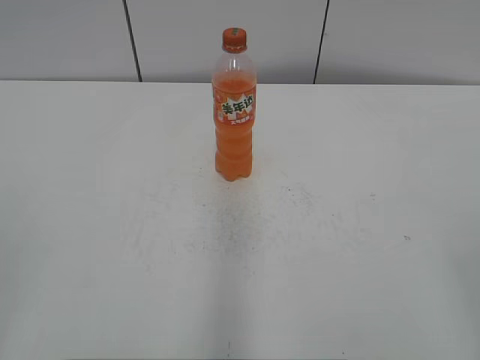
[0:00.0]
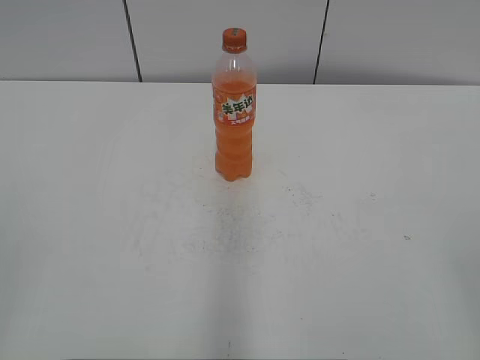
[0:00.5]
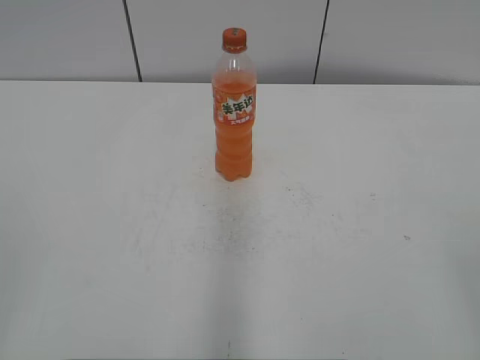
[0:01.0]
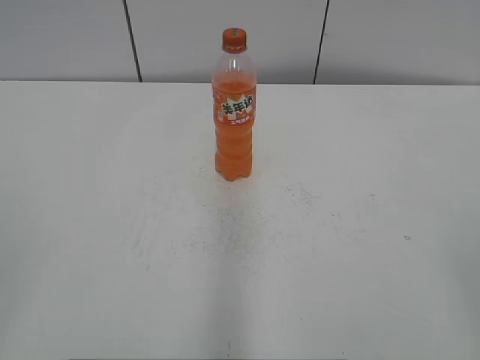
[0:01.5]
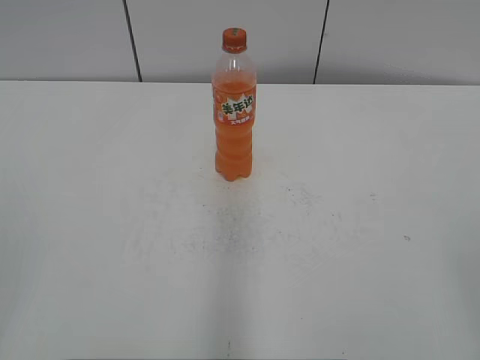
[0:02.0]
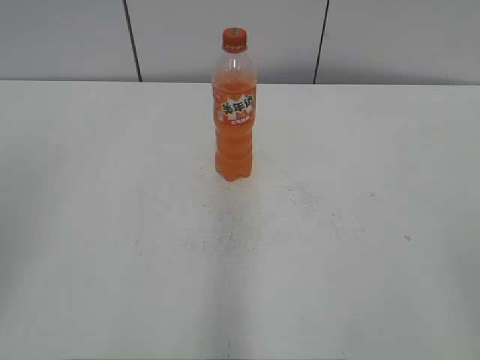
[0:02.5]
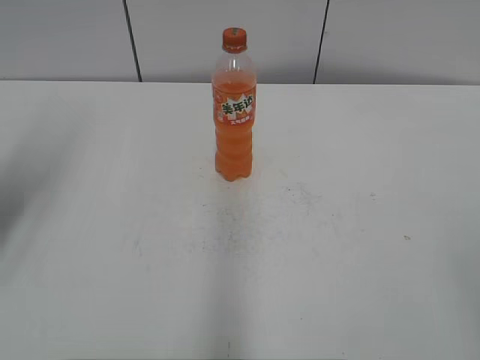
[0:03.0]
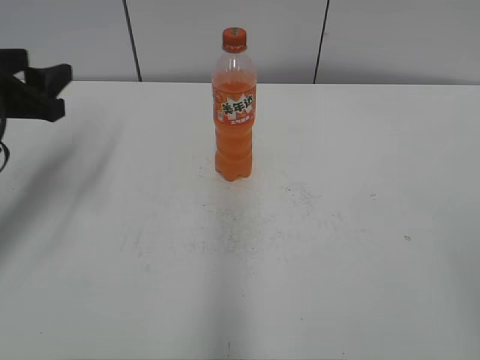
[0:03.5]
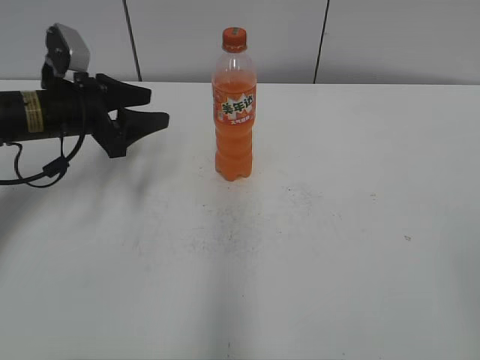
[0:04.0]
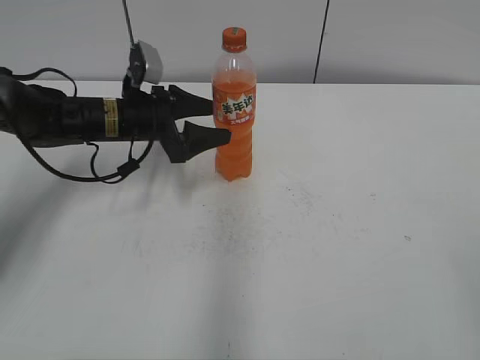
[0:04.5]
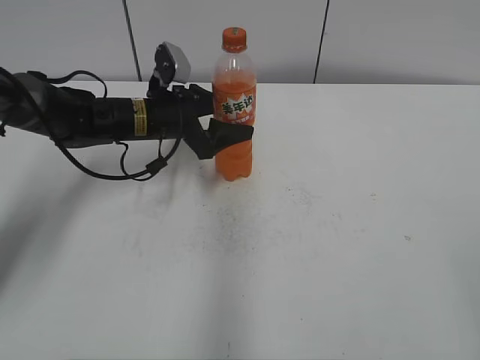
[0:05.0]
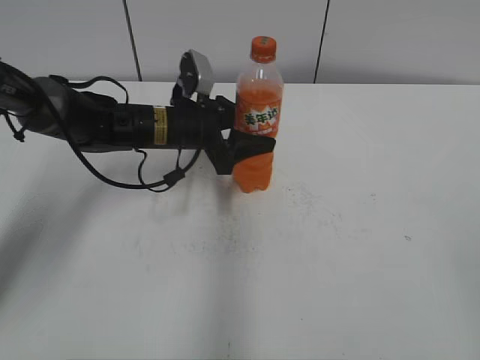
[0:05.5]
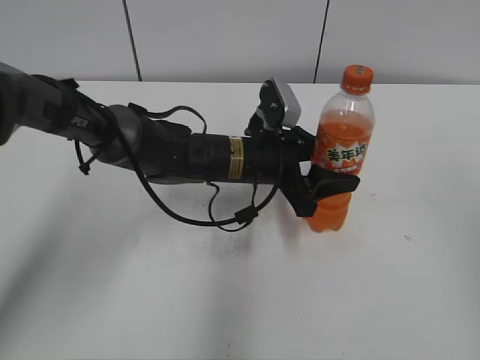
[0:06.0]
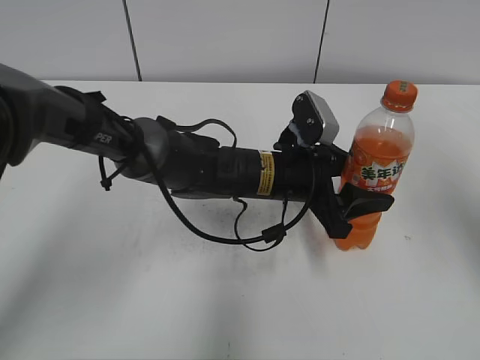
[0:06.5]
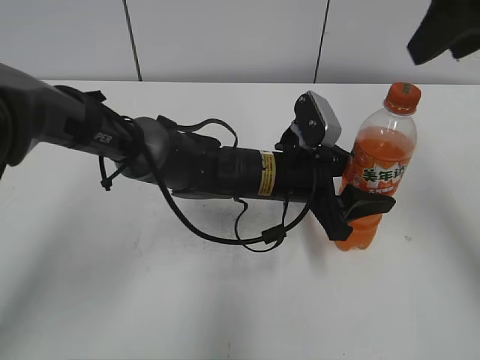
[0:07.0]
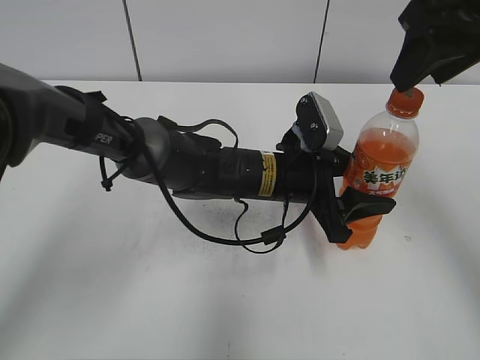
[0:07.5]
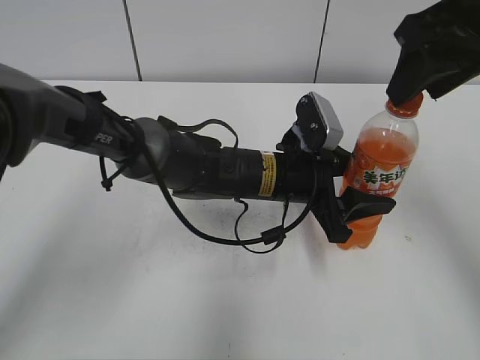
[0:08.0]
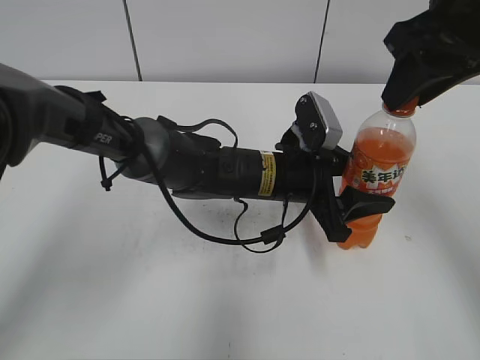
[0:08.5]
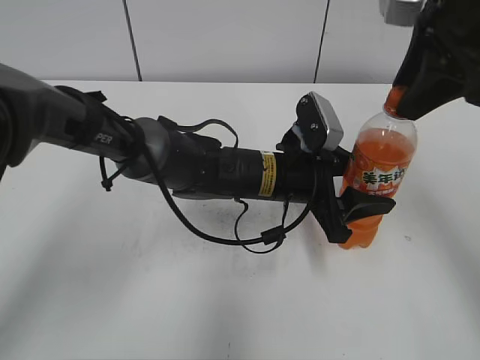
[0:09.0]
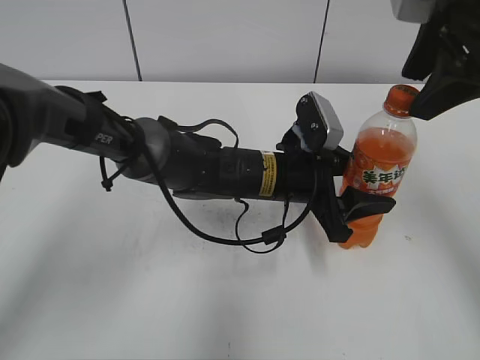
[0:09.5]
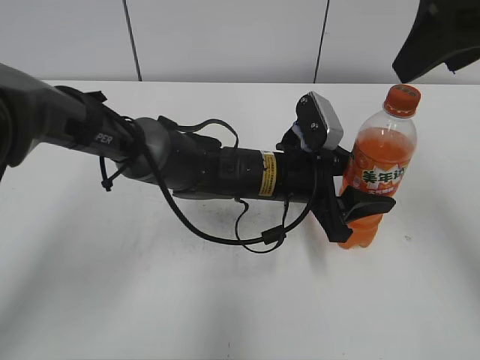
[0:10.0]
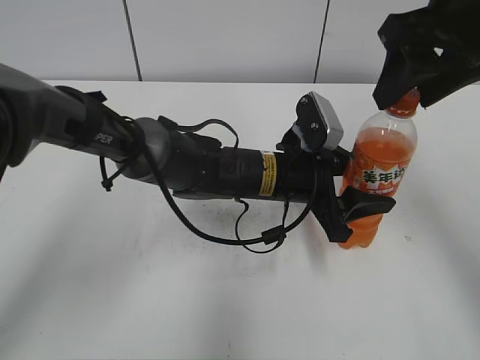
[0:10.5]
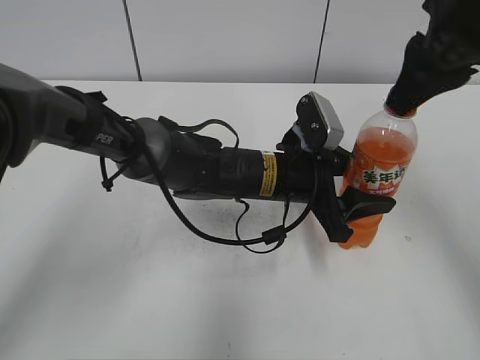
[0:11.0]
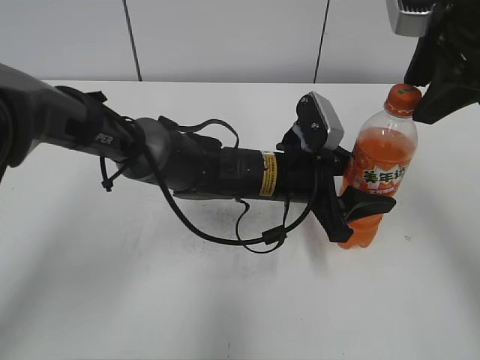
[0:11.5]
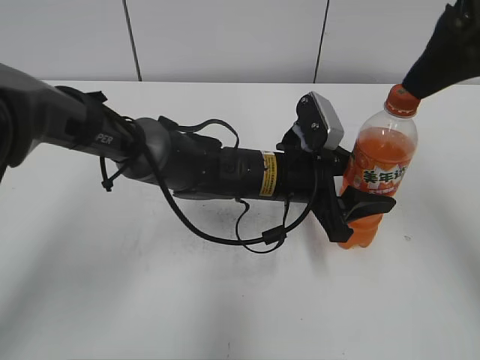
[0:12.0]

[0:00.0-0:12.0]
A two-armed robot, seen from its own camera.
Step, 0:00.0 to 0:05.0: Grab the Mirinda with the left hand.
Step, 0:05.5 to 0:06.0: Move the Mirinda from left to right.
0:02.0 to 0:04.0: The left gripper moves forward, roughly 40 cm.
0:04.0 to 0:06.0: The left gripper heads to the right, covering about 25 cm, and opens and closes again; the right gripper travels upward and forward by about 10 cm.
0:06.0 to 0:08.0: The right gripper shifts roughly 25 cm forward and to the left.
0:08.0 to 0:10.0: The right gripper closes, then opens again.
0:10.0 to 0:12.0: The right gripper closes, then opens again.

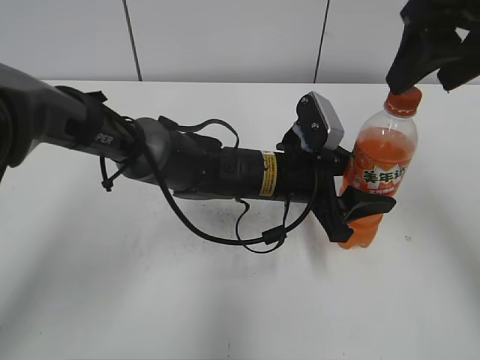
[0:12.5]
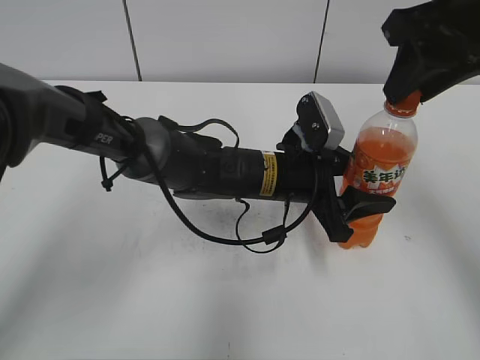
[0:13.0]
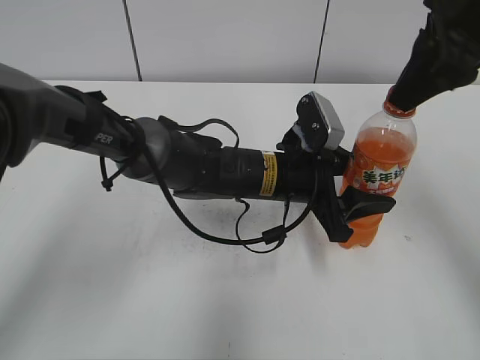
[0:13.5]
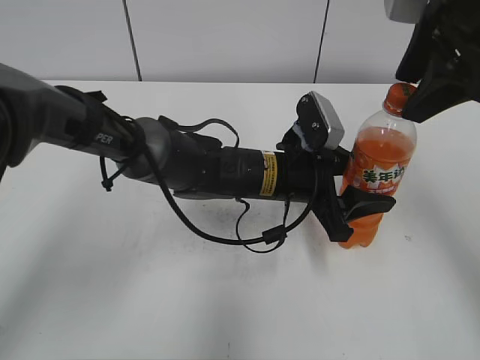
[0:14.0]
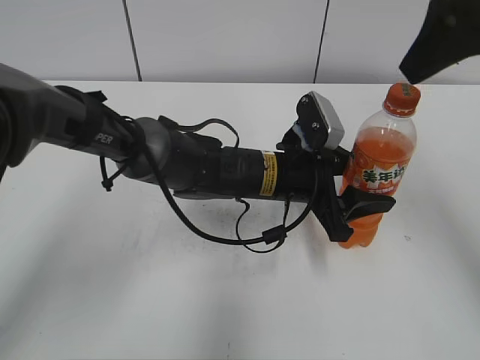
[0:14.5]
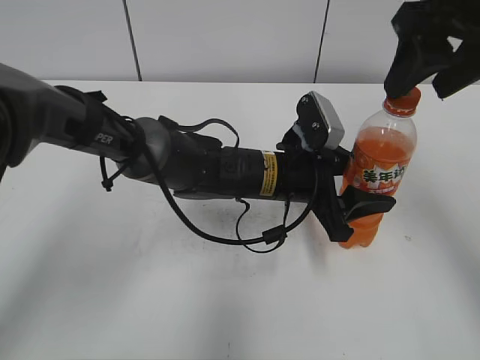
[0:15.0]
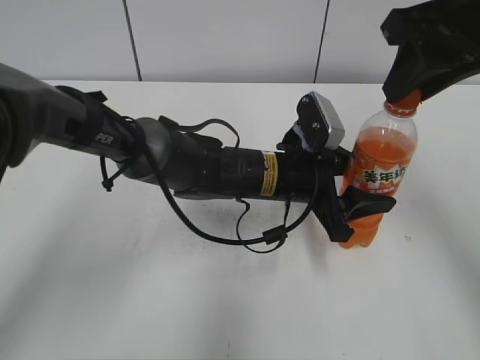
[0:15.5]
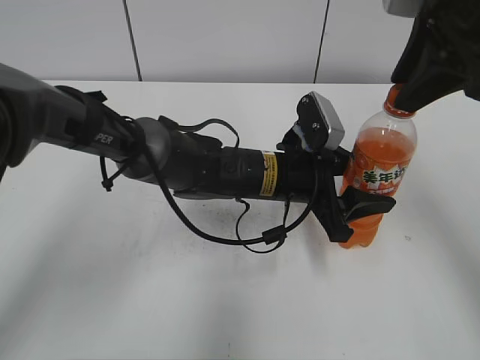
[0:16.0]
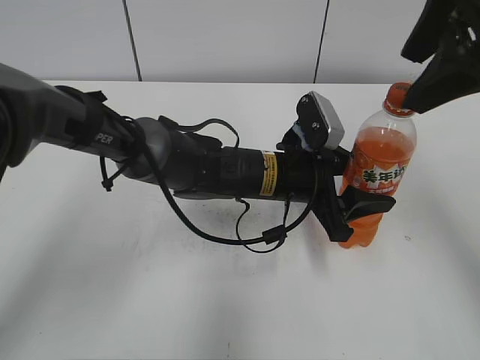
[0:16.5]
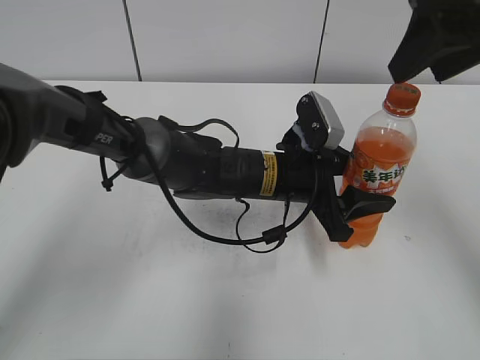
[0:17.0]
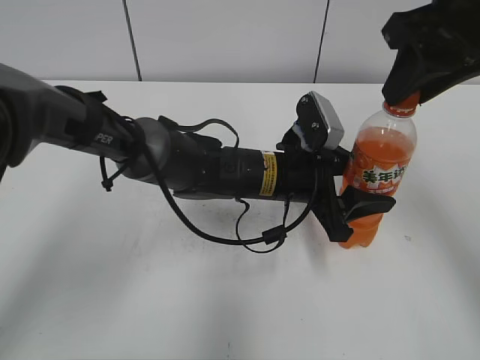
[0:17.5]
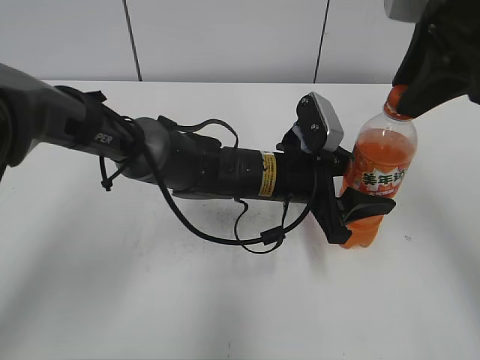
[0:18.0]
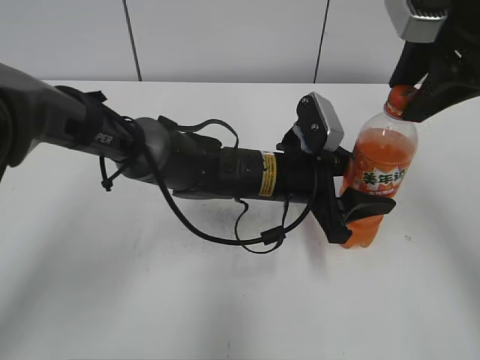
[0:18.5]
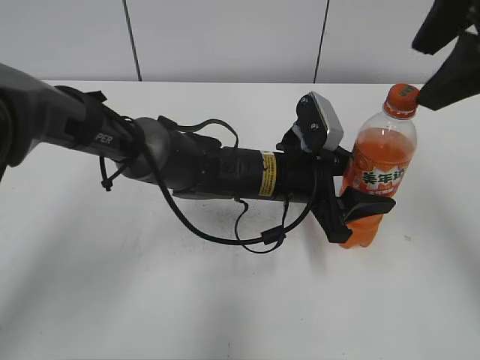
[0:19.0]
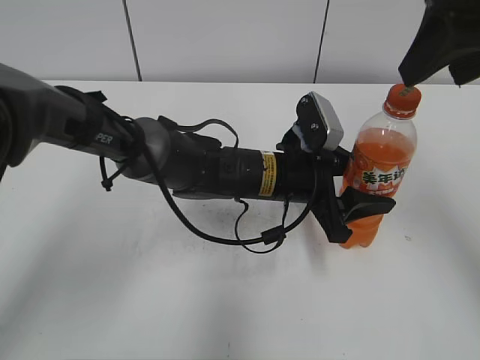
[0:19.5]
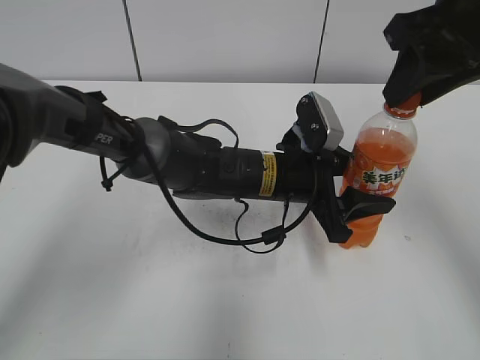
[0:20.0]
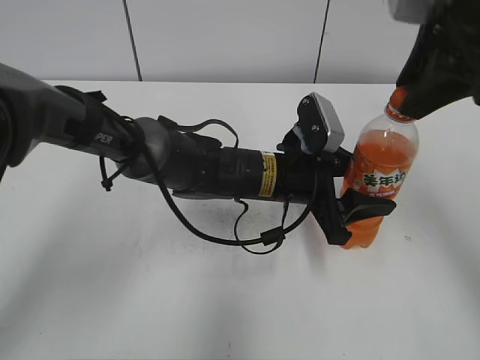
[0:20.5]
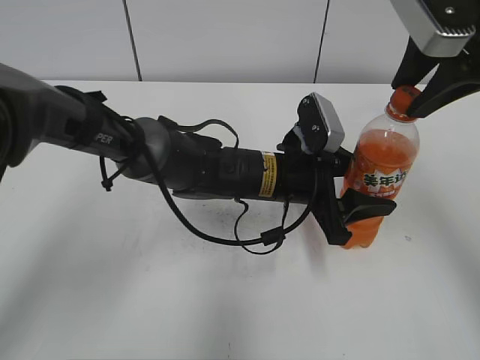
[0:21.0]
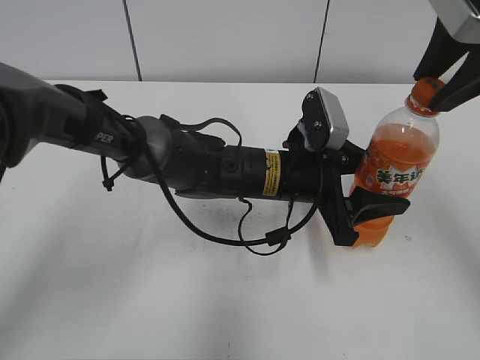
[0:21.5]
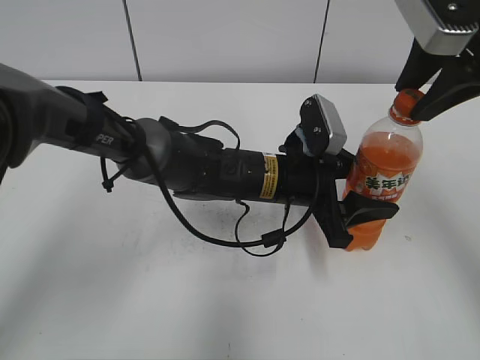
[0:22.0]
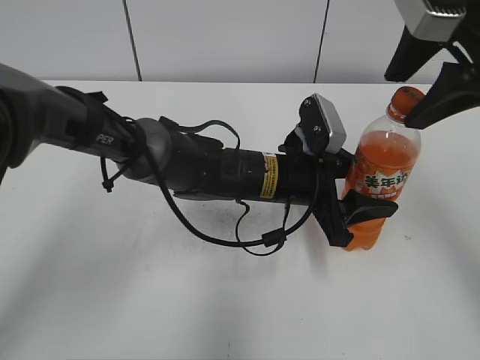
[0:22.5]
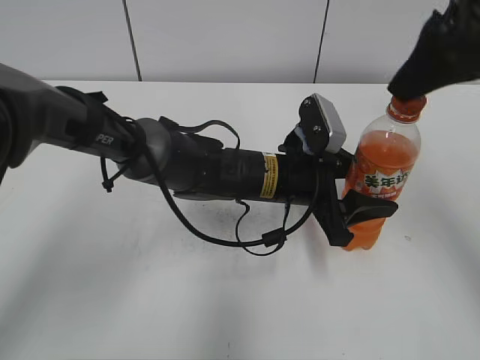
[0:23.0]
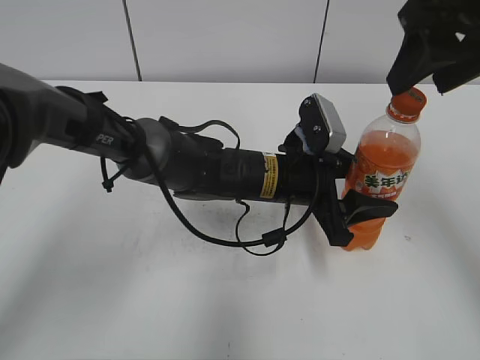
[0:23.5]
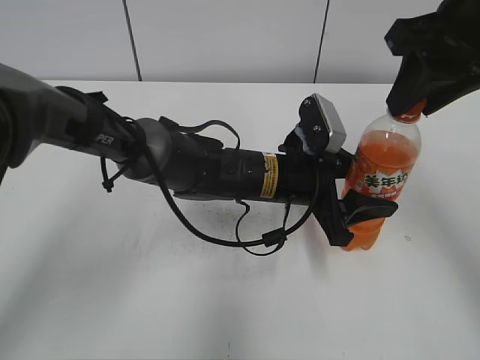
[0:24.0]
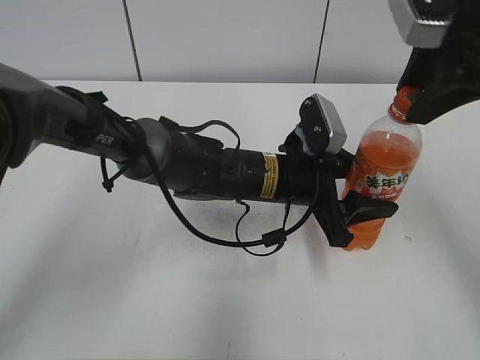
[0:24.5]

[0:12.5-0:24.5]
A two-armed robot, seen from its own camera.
0:12.5 to 0:14.5: The right gripper closes, then reopens.
0:14.5 to 0:16.5: The right gripper closes and opens again.
0:16.5 to 0:18.5: The right gripper closes up.
0:18.5 to 0:20.5: The right gripper opens, then closes again.
0:20.5 to 0:22.5: The right gripper opens its fingers.
0:22.5 to 0:24.5: The right gripper closes its fingers.

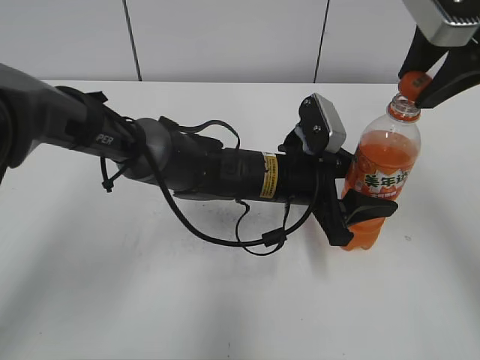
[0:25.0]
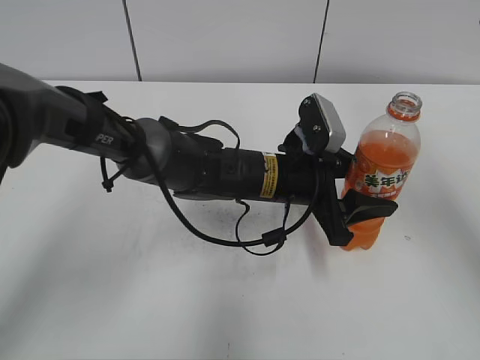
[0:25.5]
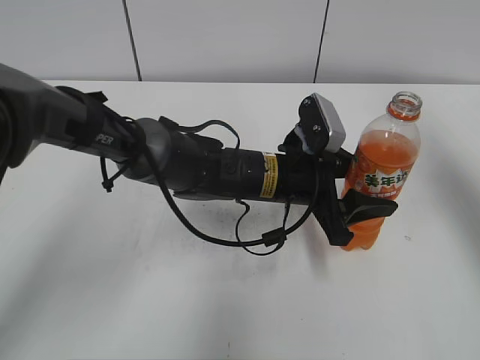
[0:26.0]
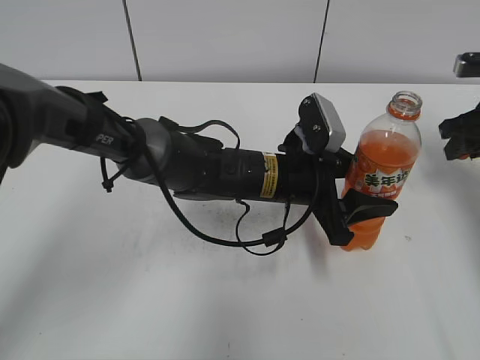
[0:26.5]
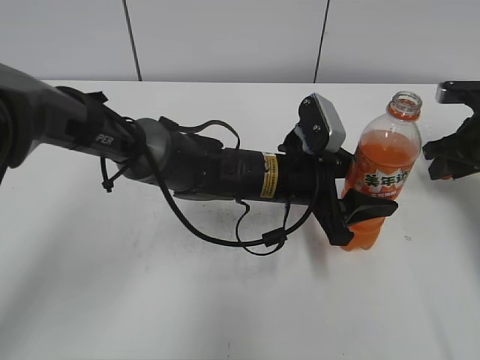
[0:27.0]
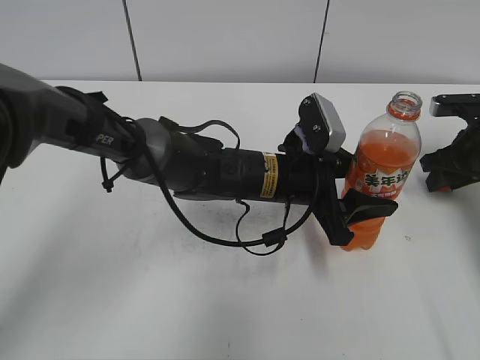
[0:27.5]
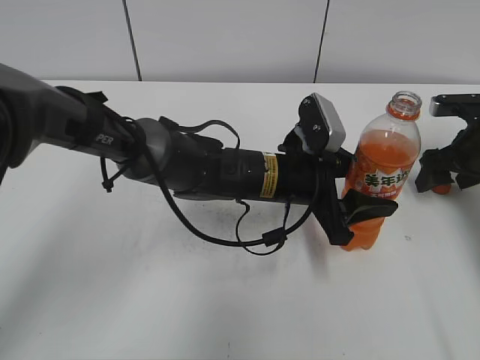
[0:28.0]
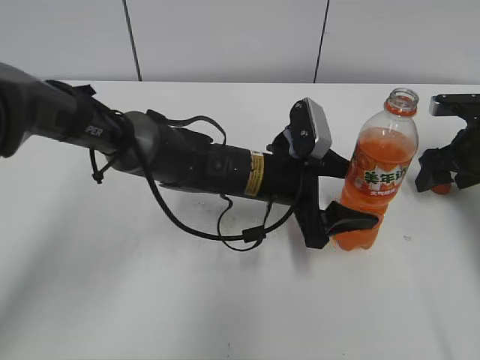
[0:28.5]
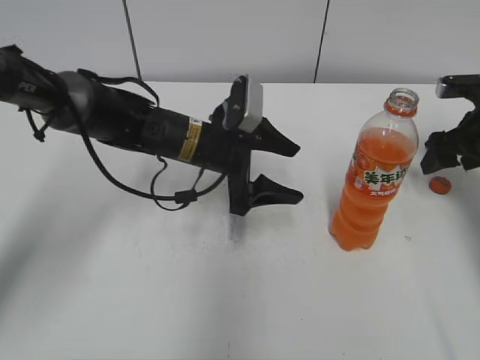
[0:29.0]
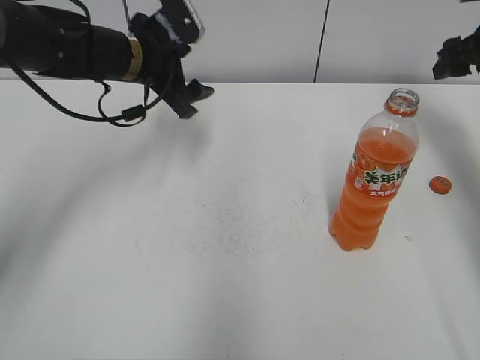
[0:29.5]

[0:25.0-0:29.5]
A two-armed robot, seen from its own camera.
Step, 0:25.0 to 0:27.5: Place the bottle cap on the right.
0:25.0 to 0:27.0: The right gripper goes roughly 30 cm downward, to the right and forward.
0:27.0 to 0:29.5: The left gripper shifts roughly 25 cm to the left, forward and upward, and opens its fingers; the right gripper heads upward and forward, covering roughly 10 cm, and opens.